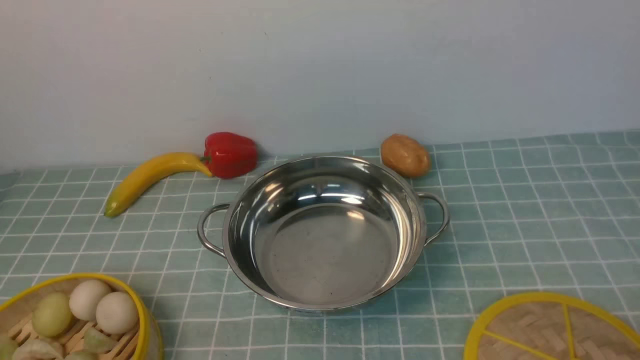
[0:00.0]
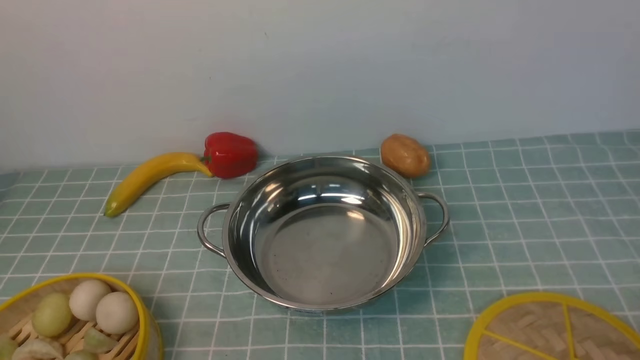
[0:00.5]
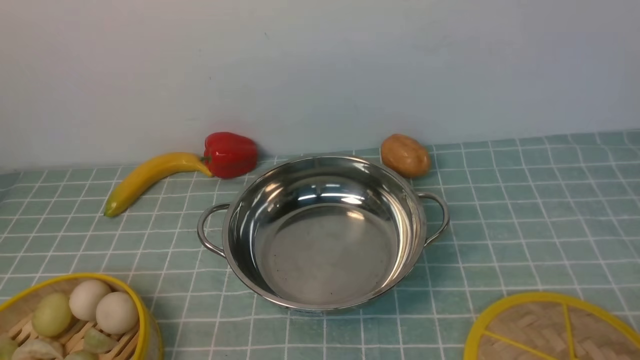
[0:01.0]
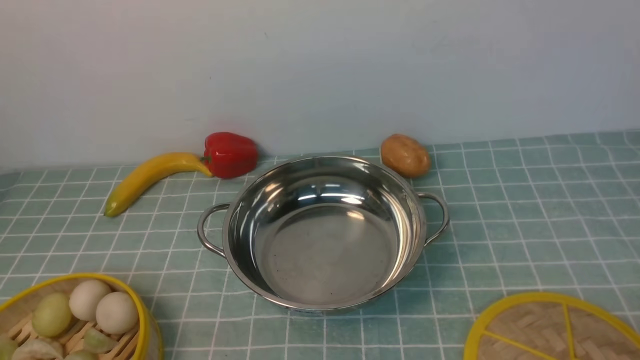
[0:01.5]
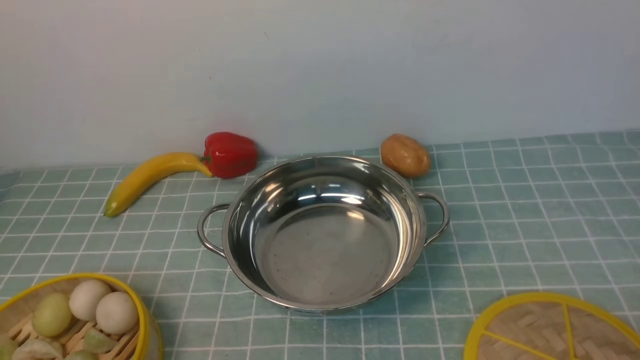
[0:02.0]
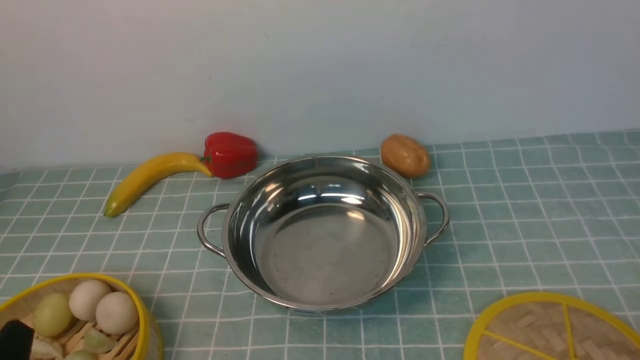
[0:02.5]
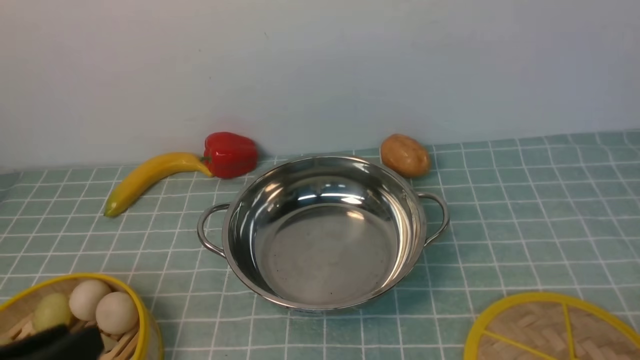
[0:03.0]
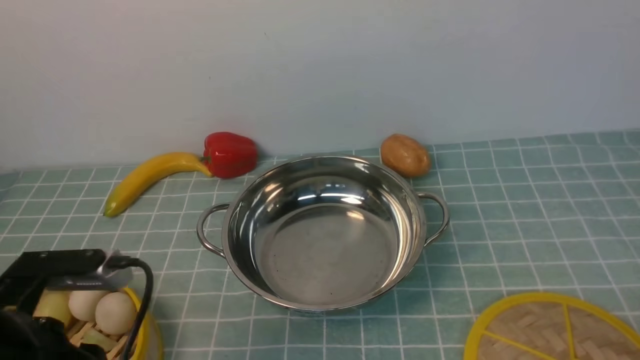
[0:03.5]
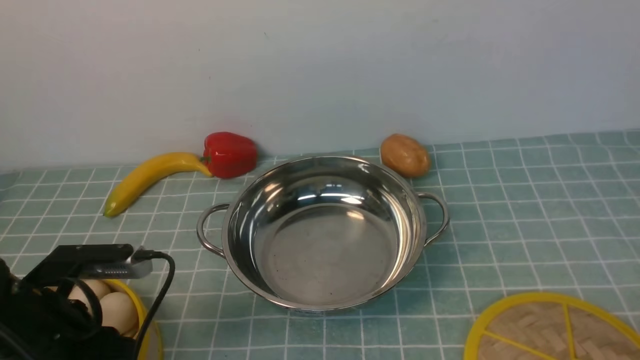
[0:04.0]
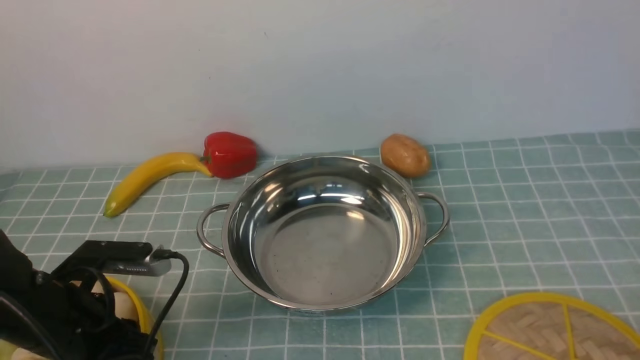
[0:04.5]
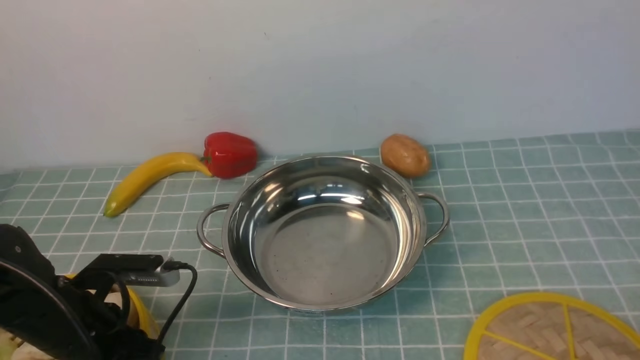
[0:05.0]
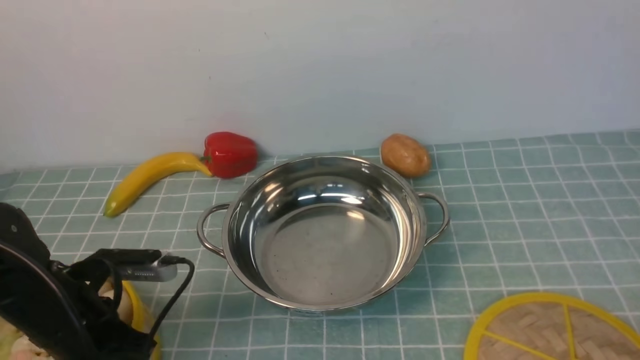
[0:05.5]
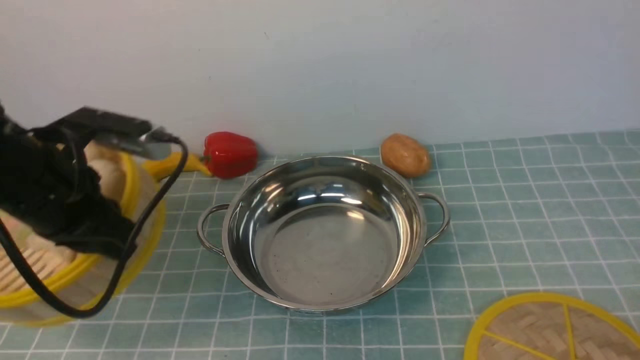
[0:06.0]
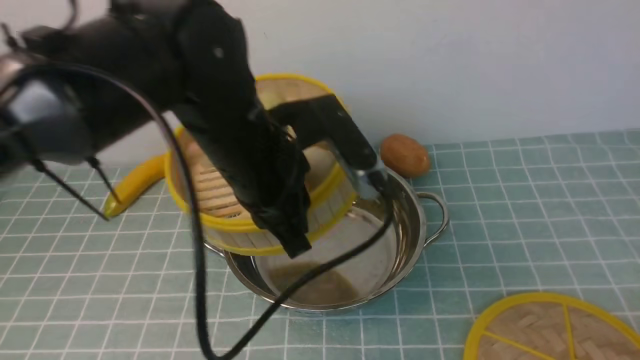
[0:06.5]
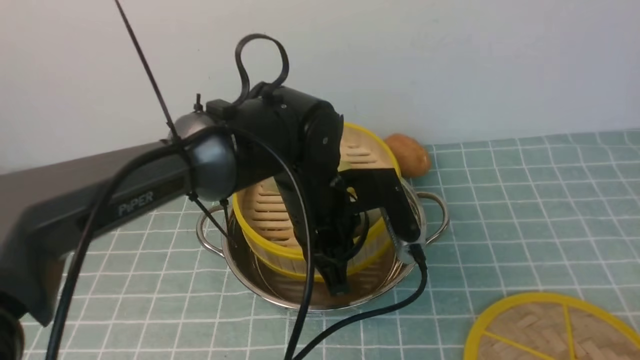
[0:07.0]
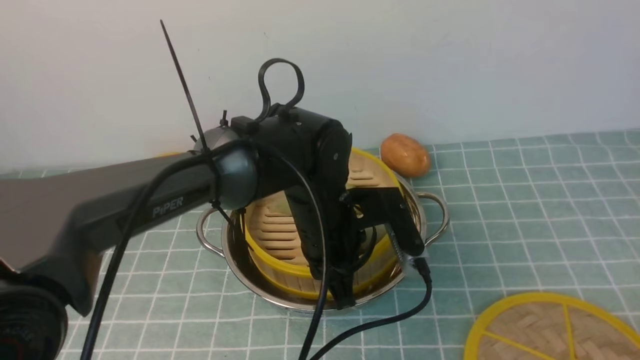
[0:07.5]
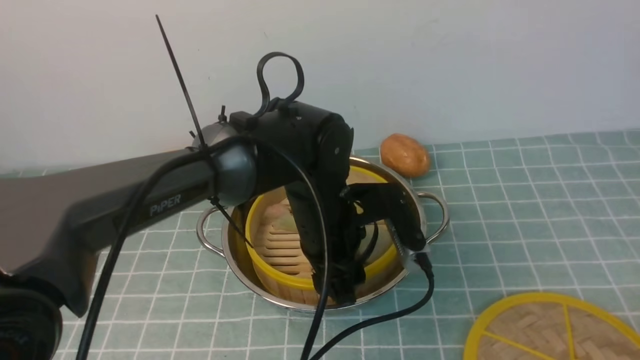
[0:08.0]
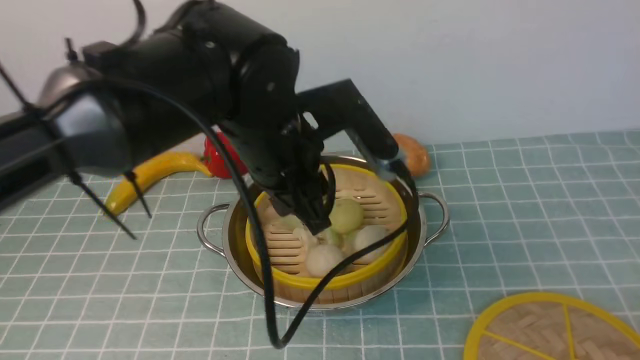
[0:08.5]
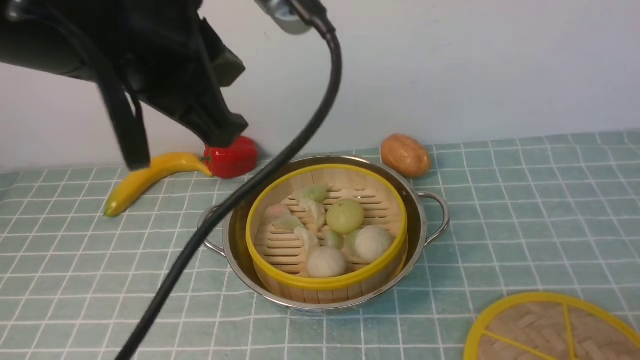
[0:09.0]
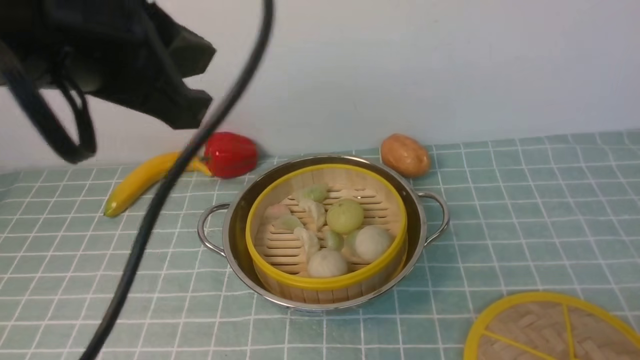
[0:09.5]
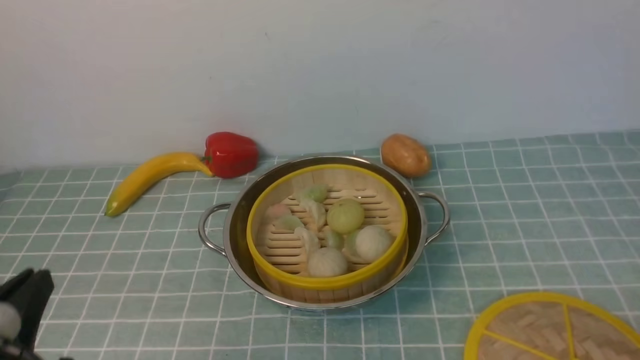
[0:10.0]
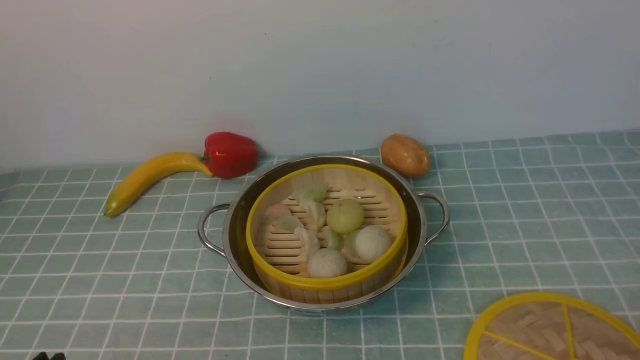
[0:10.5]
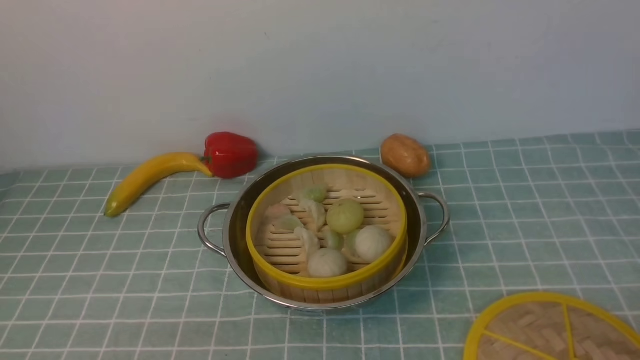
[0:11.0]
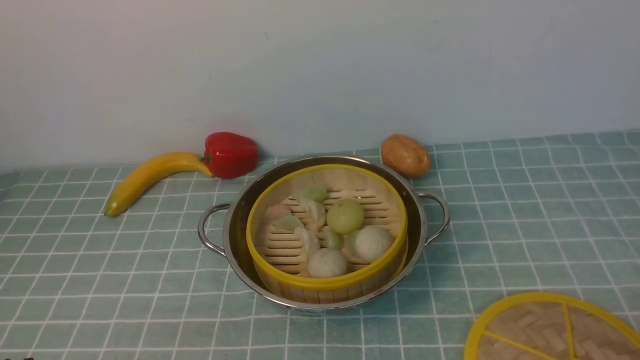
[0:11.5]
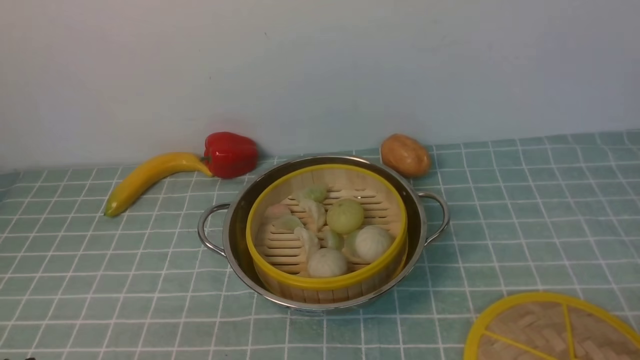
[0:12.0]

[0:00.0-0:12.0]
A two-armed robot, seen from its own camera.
Task of the whole recording: place the steamer in the pot on the blue tablecloth, and put the lid on the steamer.
Step, 0:00.0 to 0:05.5: use the left arm to lift the steamer closest to it.
Step, 0:06.0 to 0:08.0: use the left arm to put the steamer into the iron steamer pot in the middle.
0:02.0 to 0:04.0: The left gripper shifts approximately 15 cm forward.
0:04.0 to 0:06.0: The left gripper heads upward and forward, covering approximately 10 cm, and closes.
0:06.0 to 0:08.0: The left gripper shifts roughly 20 cm to the right, and opens.
0:08.0 to 0:10.0: The left gripper travels to the left, backward and upward by some 30 cm, and closes its fingers.
0:10.0 to 0:12.0: The left gripper heads downward and backward, covering approximately 15 cm.

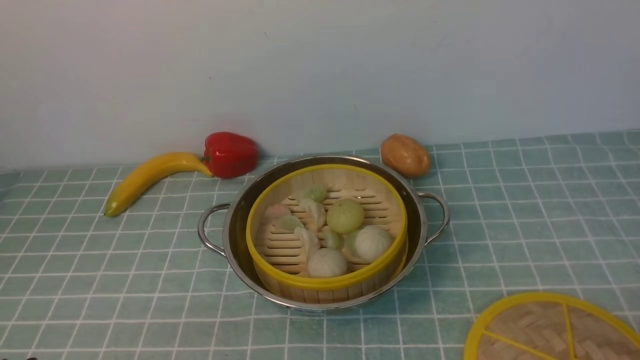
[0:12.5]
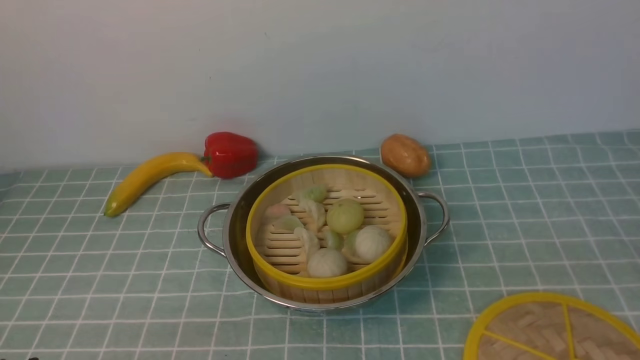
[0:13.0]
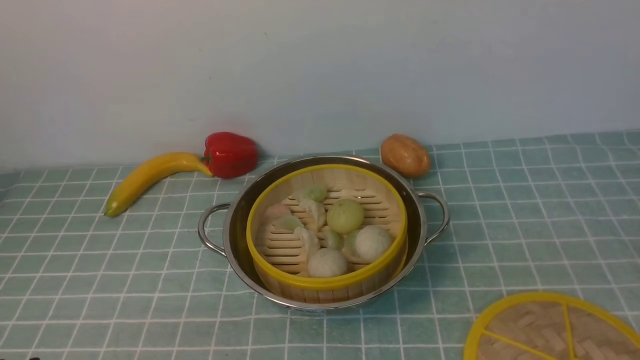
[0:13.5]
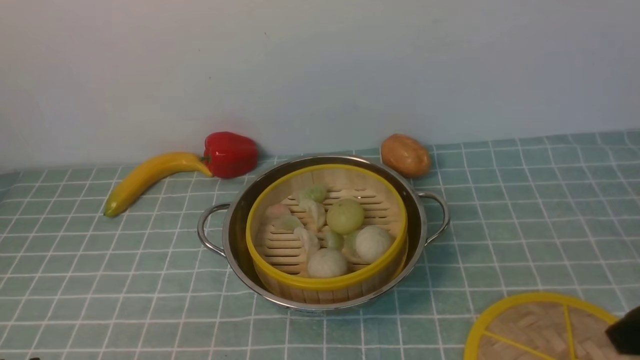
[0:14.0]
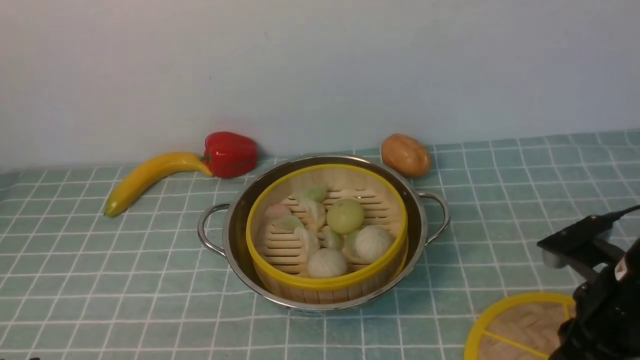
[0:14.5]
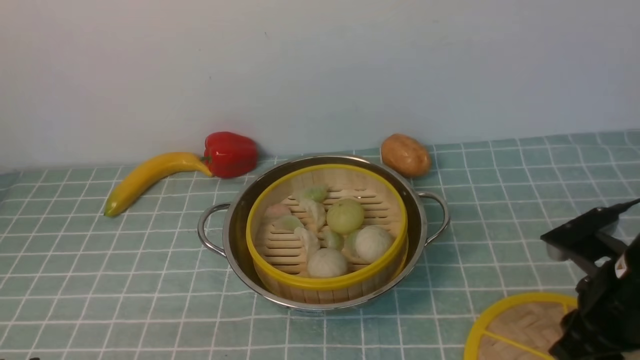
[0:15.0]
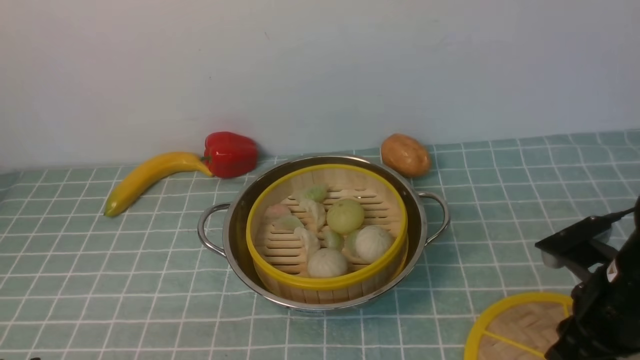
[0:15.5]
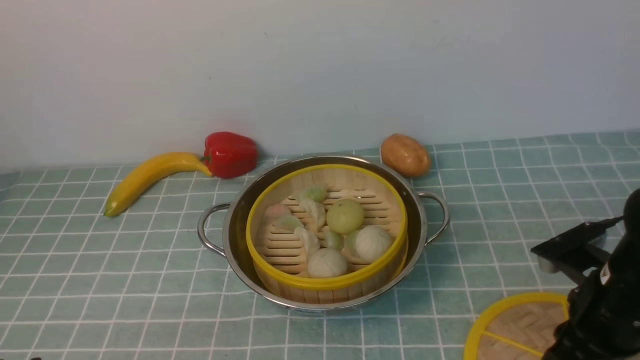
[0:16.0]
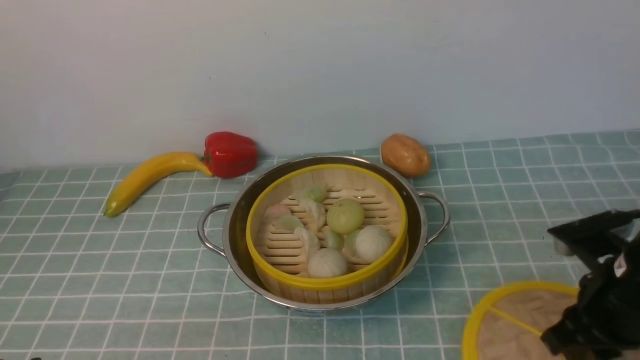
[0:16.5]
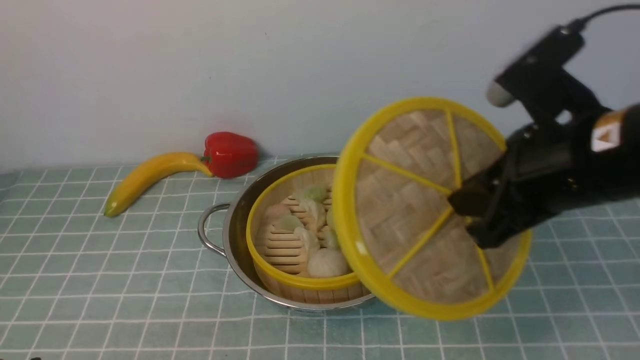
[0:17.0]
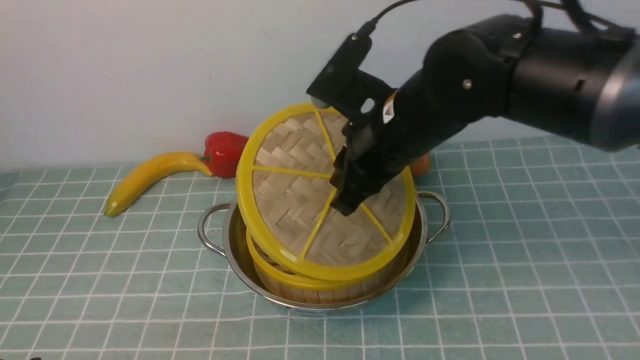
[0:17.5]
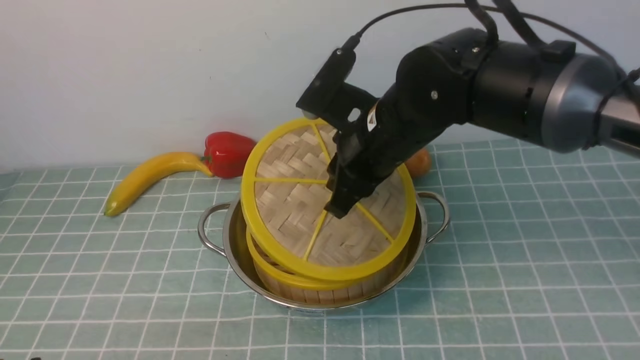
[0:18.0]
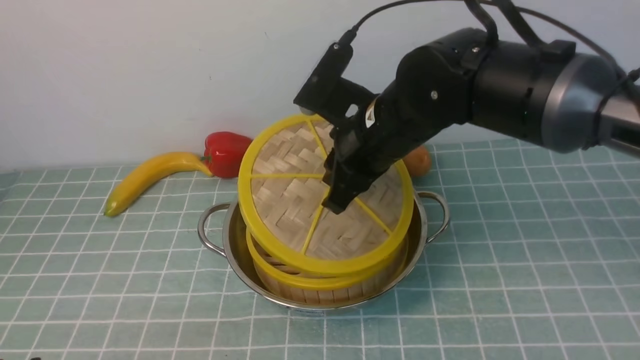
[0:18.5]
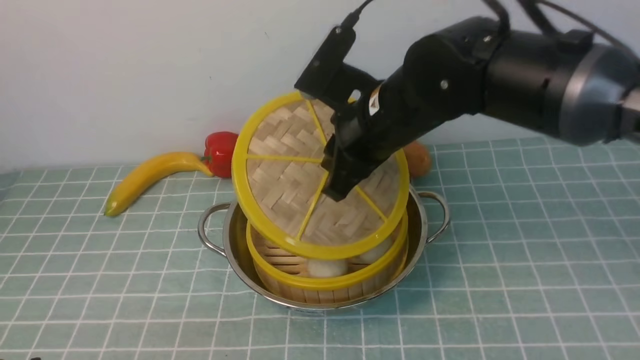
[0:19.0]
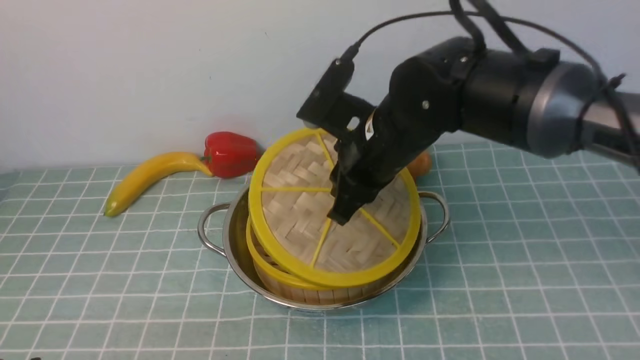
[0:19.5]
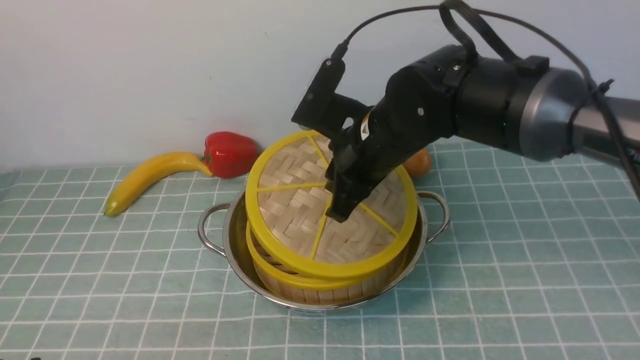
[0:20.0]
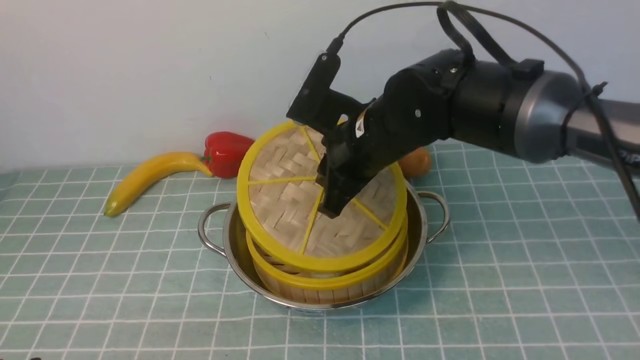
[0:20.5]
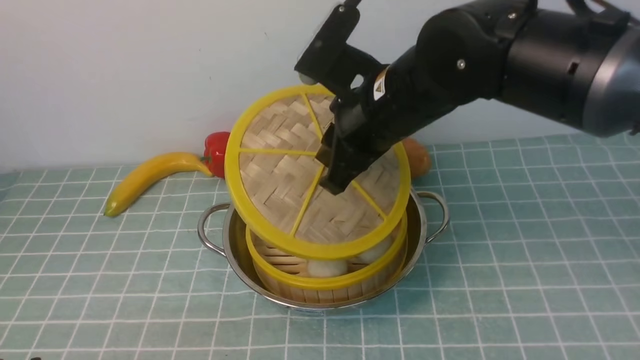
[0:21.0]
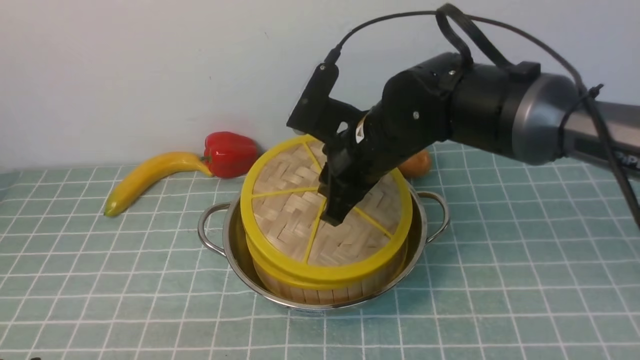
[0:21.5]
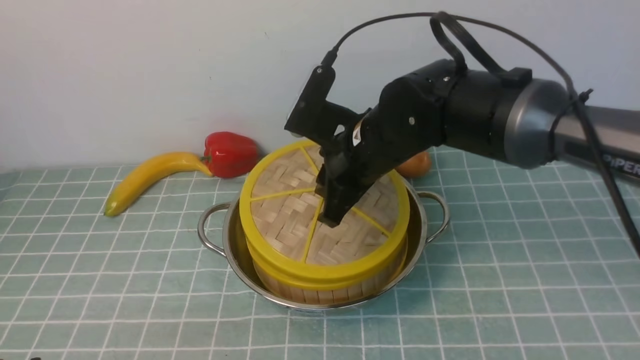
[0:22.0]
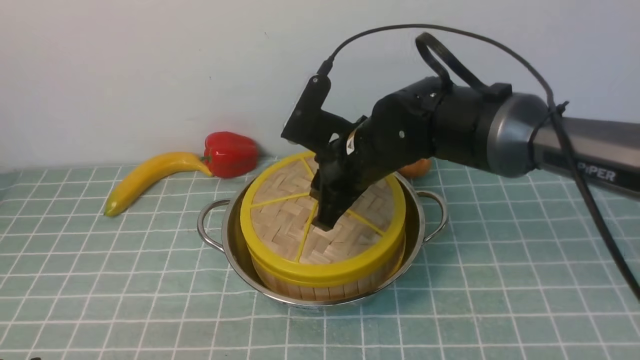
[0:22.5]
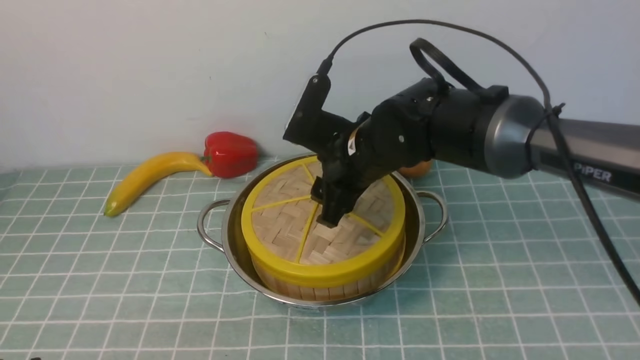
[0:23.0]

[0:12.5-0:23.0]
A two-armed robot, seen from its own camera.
Task of the whole recording: place the steamer in the pot on the blue tablecloth, and put the lid on the steamer.
Step, 0:12.5 to 0:16.5: use the right arm to lift the lid of the steamer.
0:12.5 to 0:14.5: The right gripper moves forward and to the left, about 15 cm.
0:14.5 to 0:16.5: The right gripper closes its fingers.
0:16.5 to 0:19.0: The right gripper travels to the left, forward and upward by some 25 cm.
0:19.0 to 0:21.0: The grippers make only small movements.
0:21.0 to 0:23.0: The right gripper is displaced downward by roughly 5 cm, and opens.
